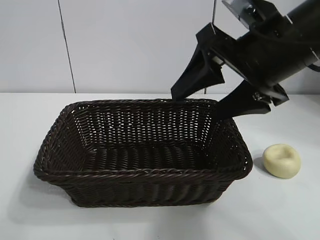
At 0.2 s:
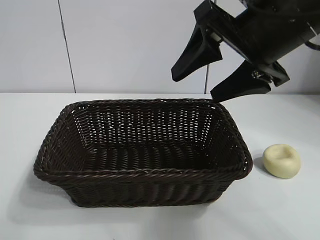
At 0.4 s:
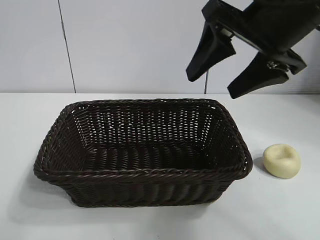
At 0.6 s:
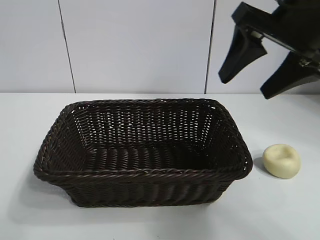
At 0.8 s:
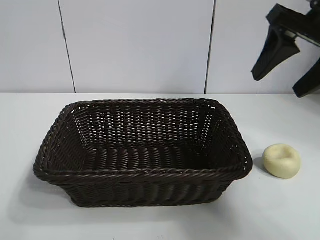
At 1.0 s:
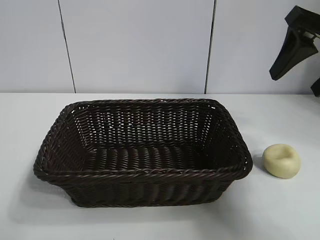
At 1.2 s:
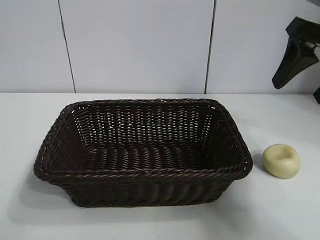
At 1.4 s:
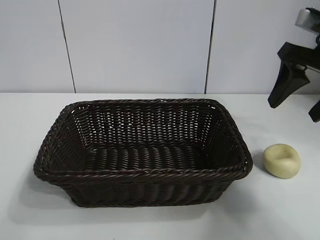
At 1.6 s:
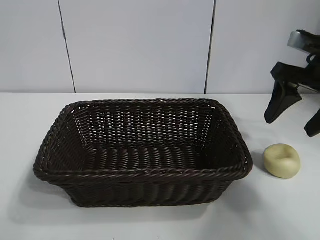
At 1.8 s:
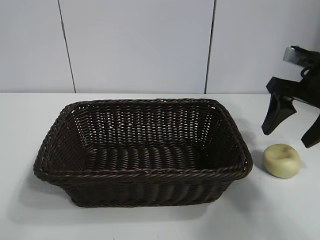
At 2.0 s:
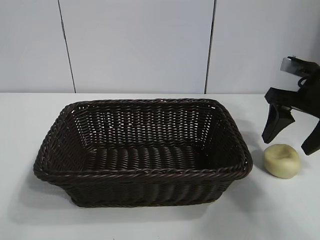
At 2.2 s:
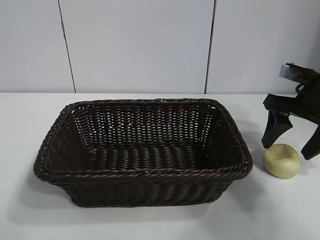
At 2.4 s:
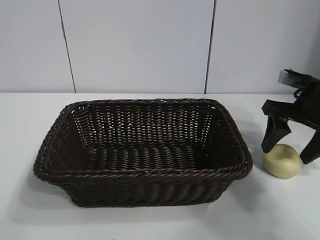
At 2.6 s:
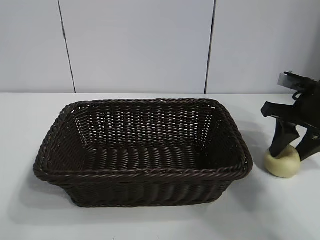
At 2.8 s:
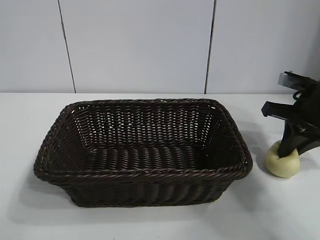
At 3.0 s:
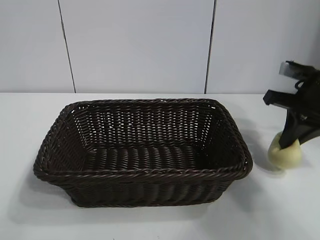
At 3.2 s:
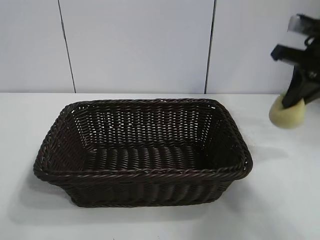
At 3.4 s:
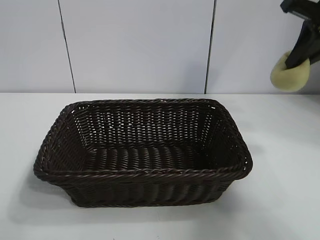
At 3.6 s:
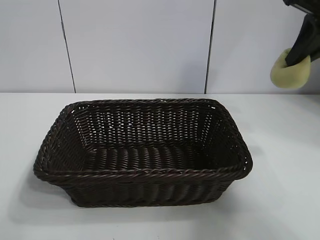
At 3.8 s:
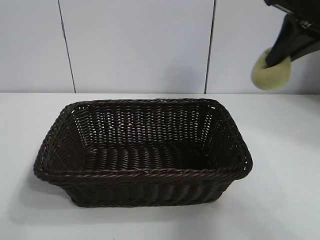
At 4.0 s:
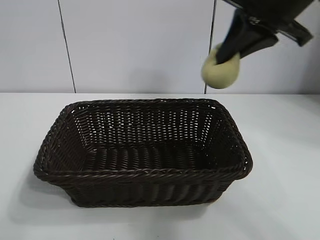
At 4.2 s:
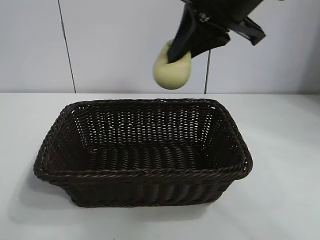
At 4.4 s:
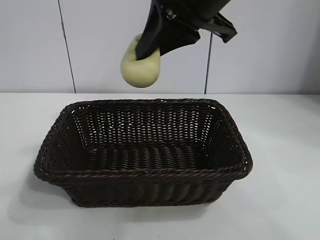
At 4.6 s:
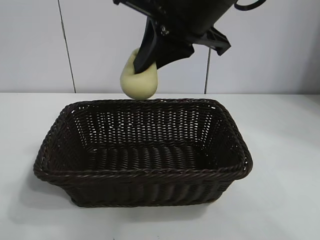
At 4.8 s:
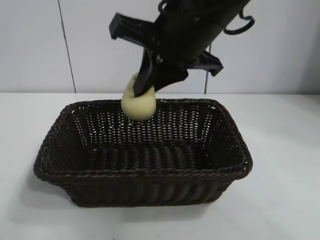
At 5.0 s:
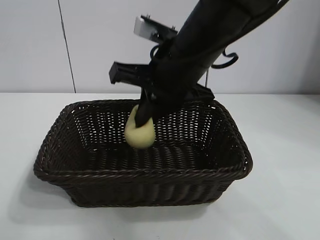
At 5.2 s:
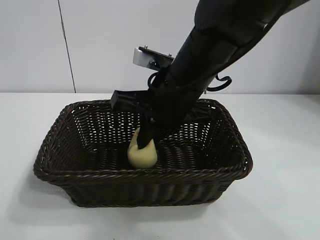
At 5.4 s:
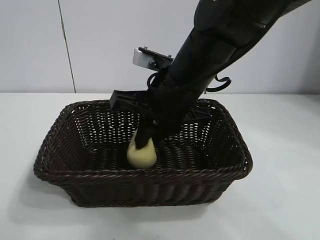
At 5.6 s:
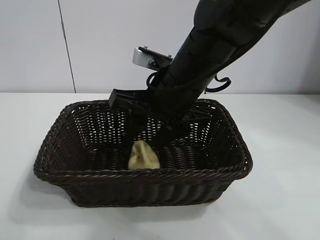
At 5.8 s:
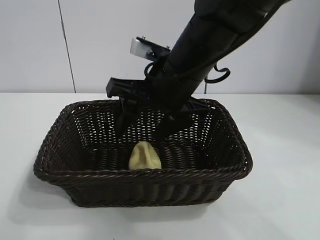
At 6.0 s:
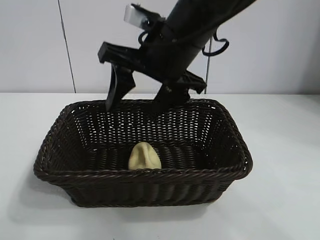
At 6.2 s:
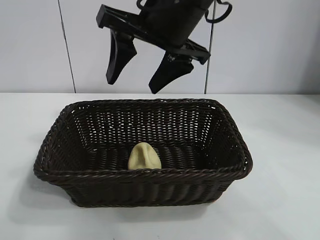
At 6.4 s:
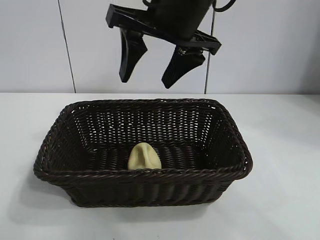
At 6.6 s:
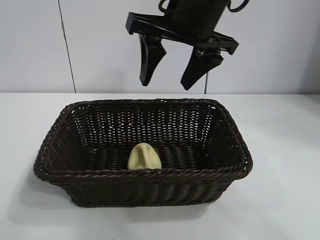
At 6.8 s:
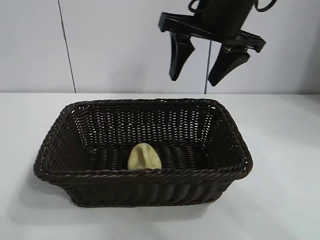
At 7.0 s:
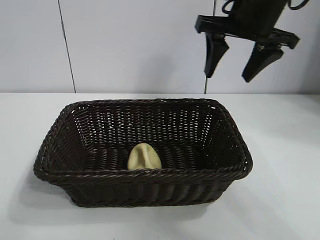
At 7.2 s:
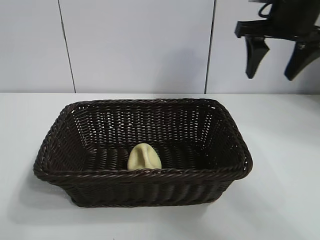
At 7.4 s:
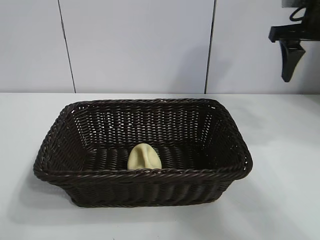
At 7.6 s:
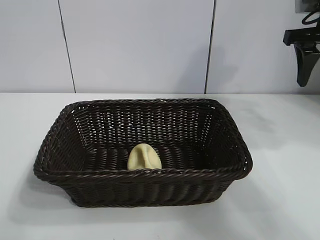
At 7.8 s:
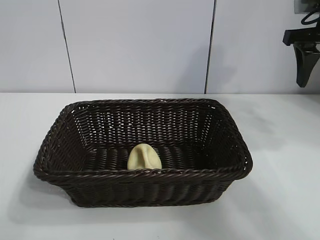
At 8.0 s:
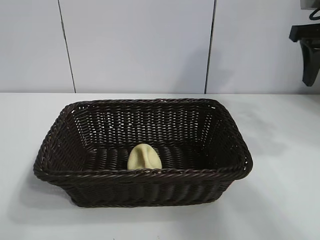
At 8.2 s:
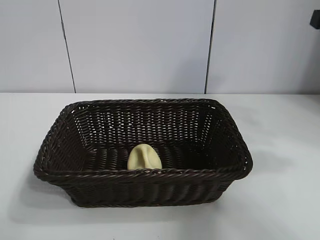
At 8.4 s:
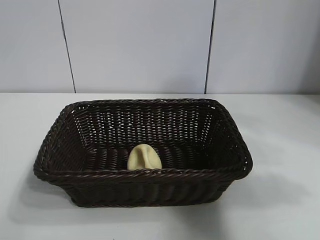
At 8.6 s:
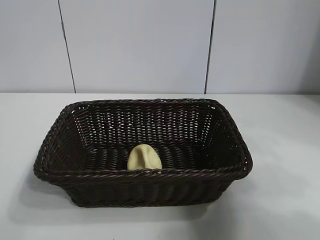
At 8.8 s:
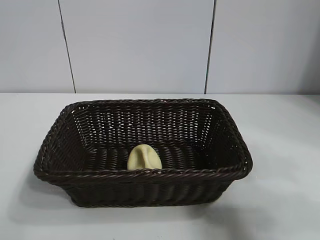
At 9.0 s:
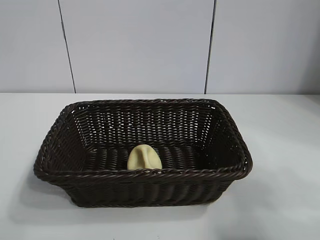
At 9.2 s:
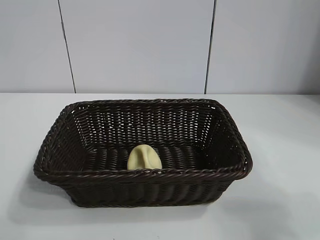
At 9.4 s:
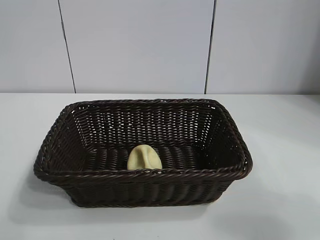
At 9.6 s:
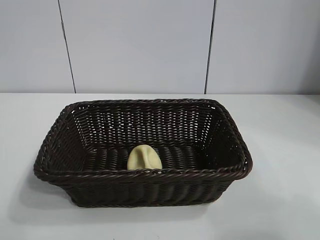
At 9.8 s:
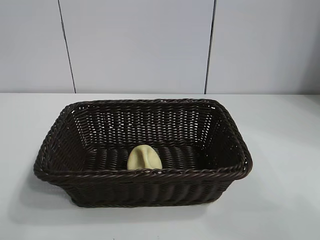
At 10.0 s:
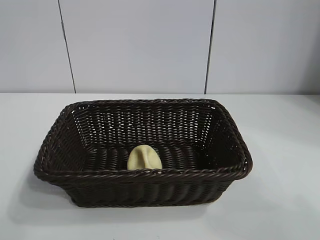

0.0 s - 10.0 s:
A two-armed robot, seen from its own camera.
Task of the whole recording: pick up the egg yolk pastry and put it into the basket.
Step, 0.0 s - 2.8 s: Grasp egg yolk pastry with right gripper.
Step, 3.0 s - 5.8 s: Place the egg yolk pastry in the basket with right gripper.
